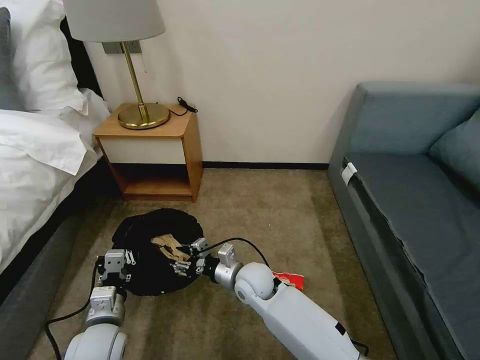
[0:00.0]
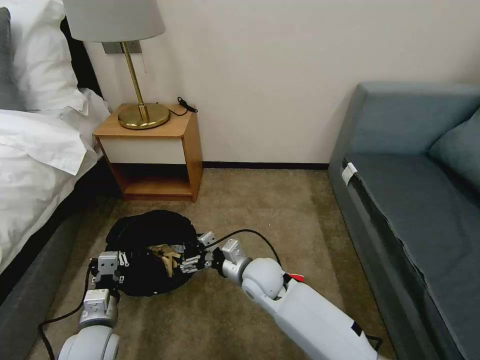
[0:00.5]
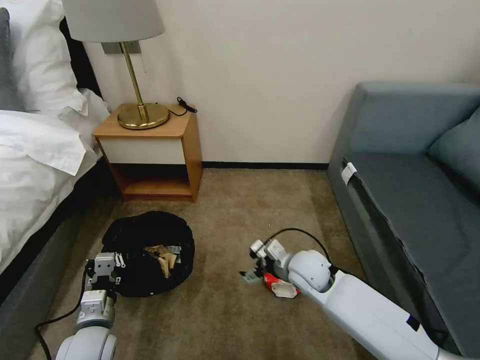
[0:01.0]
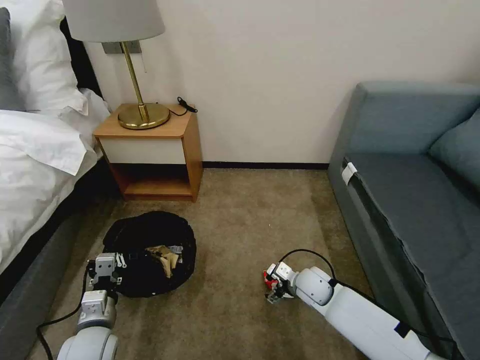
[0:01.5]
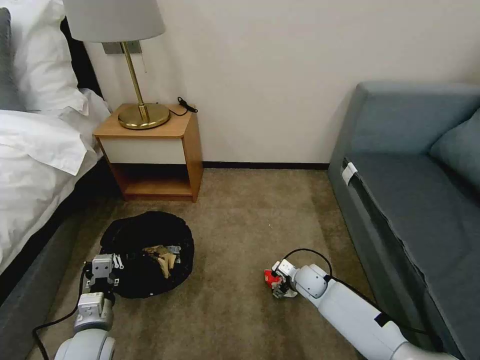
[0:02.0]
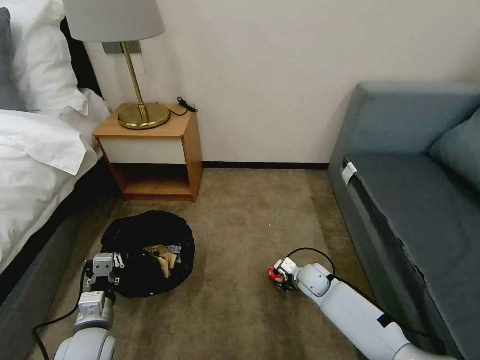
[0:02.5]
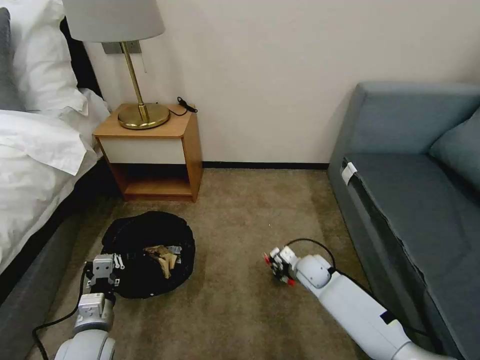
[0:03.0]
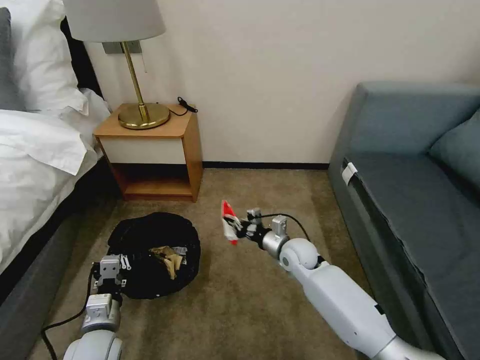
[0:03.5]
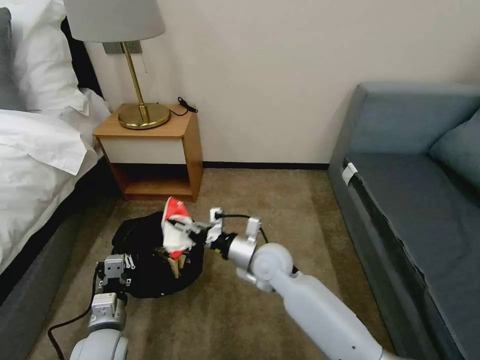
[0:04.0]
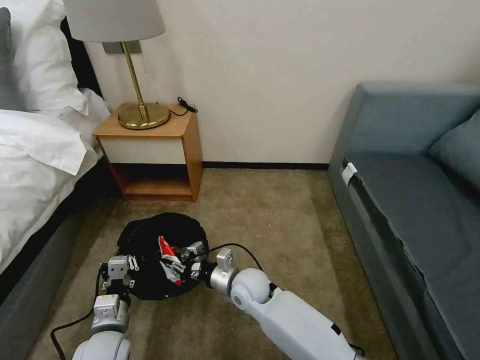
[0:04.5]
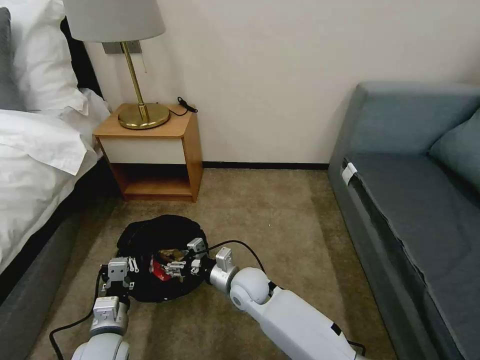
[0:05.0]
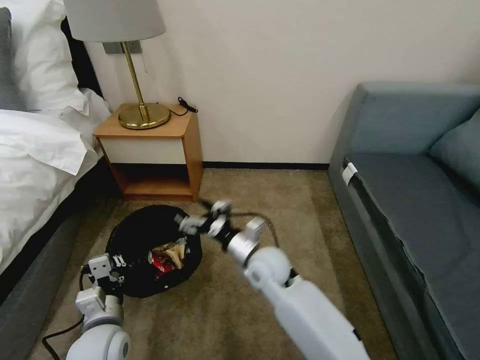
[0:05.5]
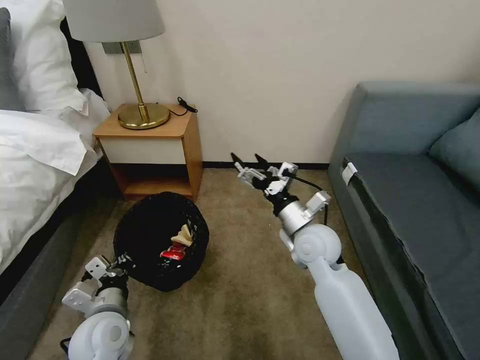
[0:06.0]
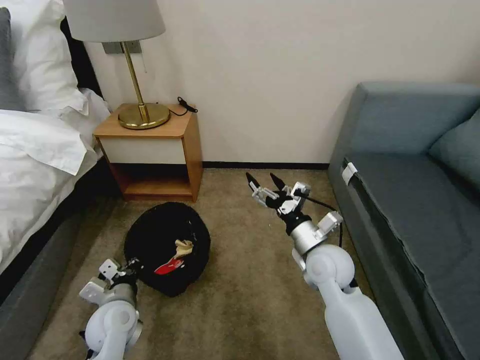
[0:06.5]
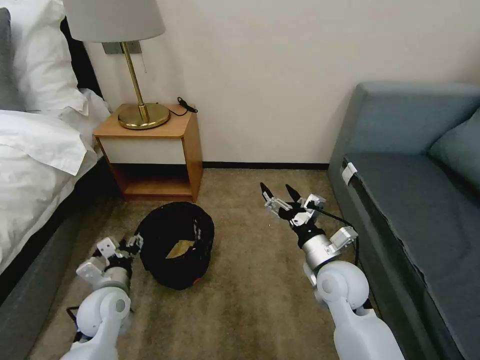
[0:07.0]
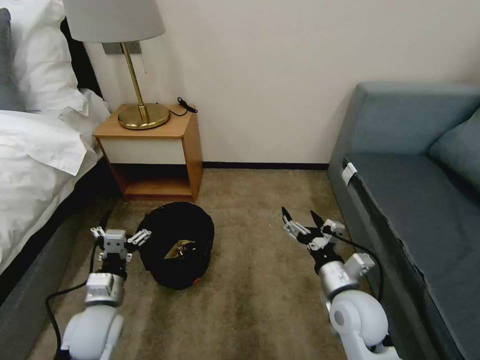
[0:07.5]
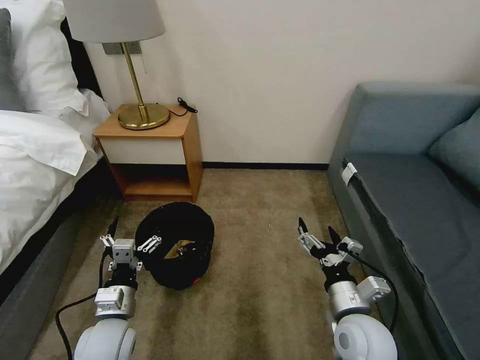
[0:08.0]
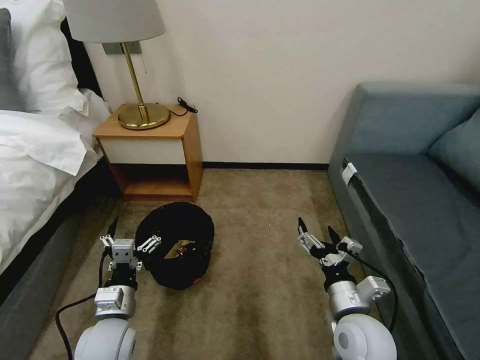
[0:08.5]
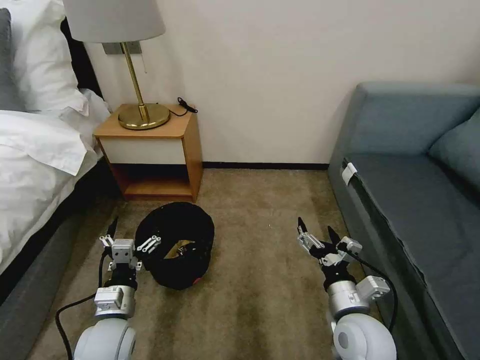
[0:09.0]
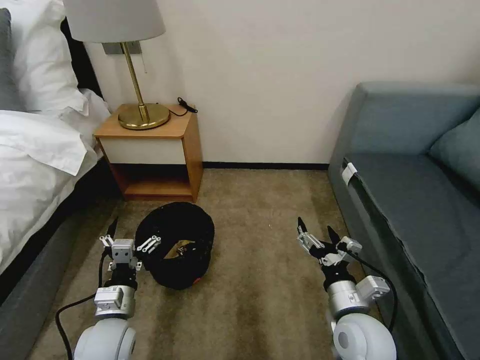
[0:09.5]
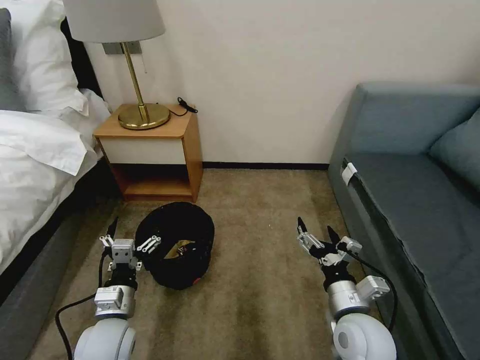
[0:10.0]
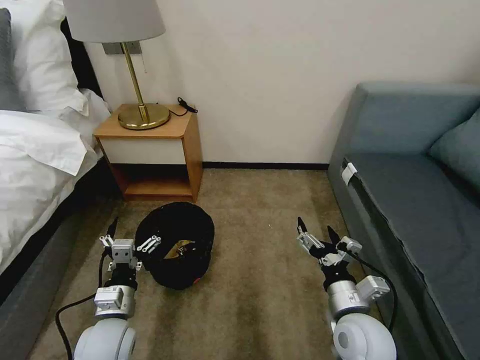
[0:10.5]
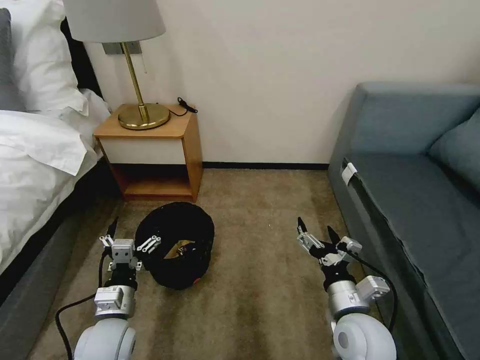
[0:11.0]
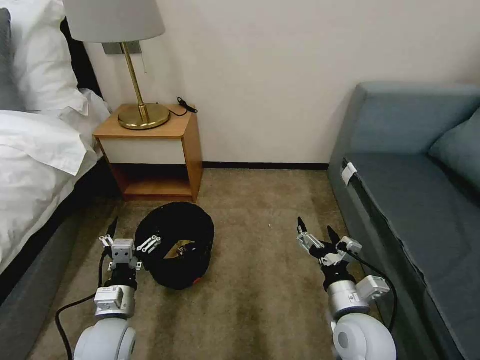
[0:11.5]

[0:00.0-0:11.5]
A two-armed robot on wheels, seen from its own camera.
Task of the whole recording: Pick up the trash bin, then pick up the garbage on the floor and place it into the trash bin.
0:00.0 to 0:02.0: The right gripper travels to the right and downward by about 20 cm, and opens its fingers.
0:02.0 to 0:04.0: The right gripper travels upward and to the left by some 20 cm, and closes its fingers.
0:04.0 to 0:06.0: The left gripper shifts approximately 5 cm upward. The right gripper moves to the right and upward, about 10 cm, and opens up.
0:06.0 to 0:07.5: The left gripper opens up; the right gripper is displaced backward, to the right and downward by about 15 cm.
0:07.5 to 0:09.5: The grippers make only small movements.
0:09.5 to 0:11.5: Both grippers stay put.

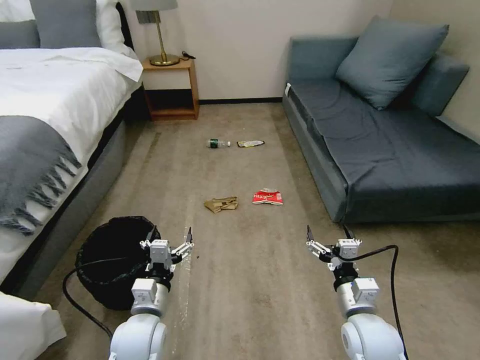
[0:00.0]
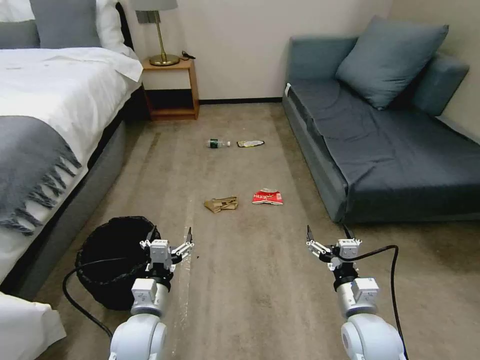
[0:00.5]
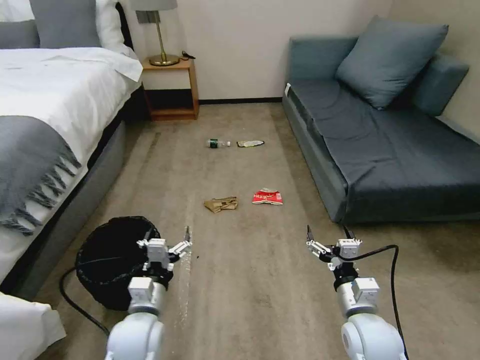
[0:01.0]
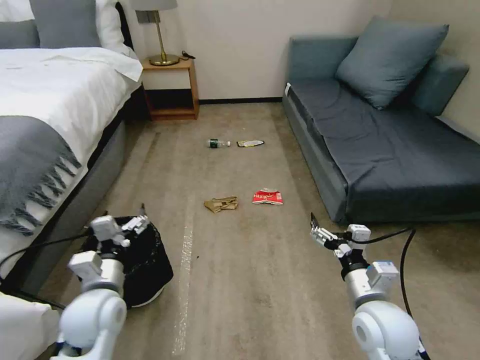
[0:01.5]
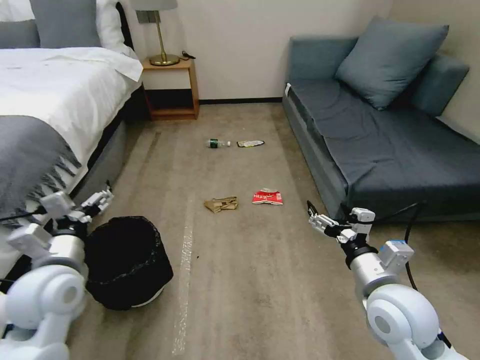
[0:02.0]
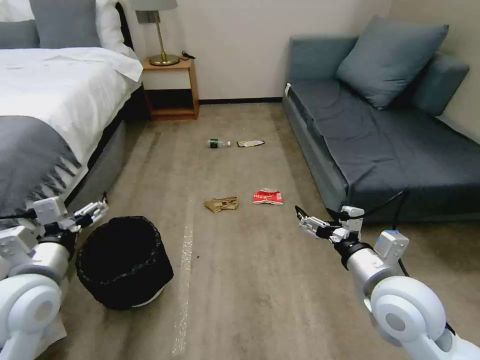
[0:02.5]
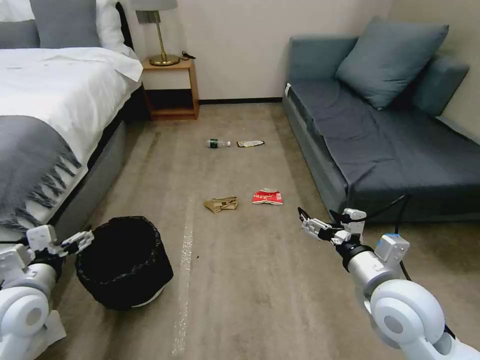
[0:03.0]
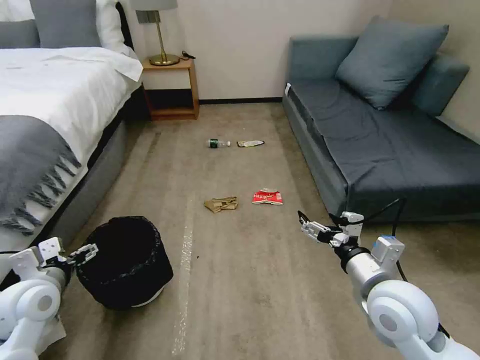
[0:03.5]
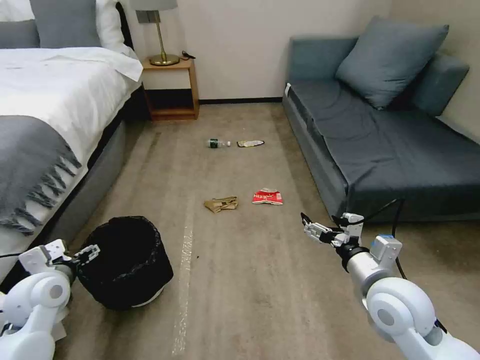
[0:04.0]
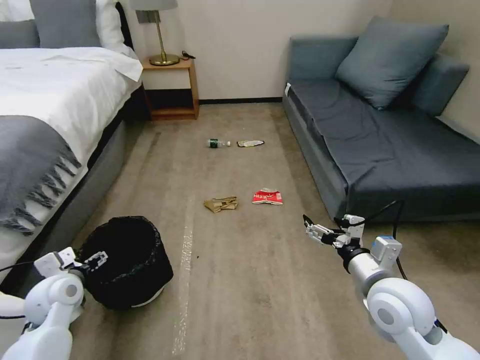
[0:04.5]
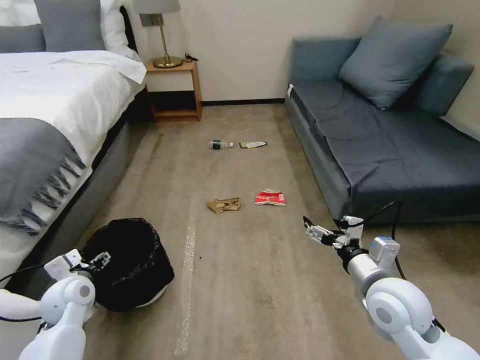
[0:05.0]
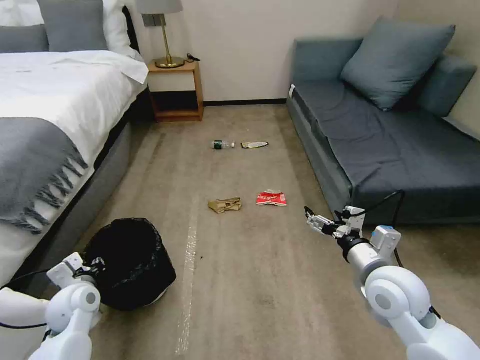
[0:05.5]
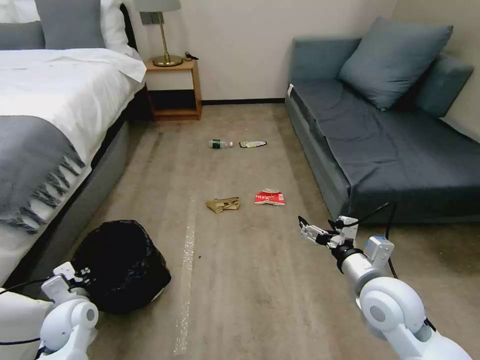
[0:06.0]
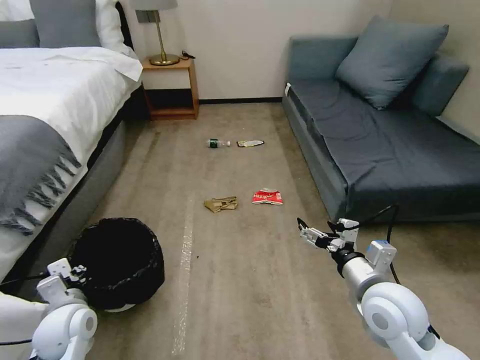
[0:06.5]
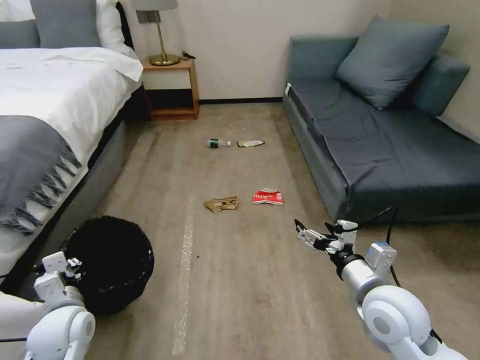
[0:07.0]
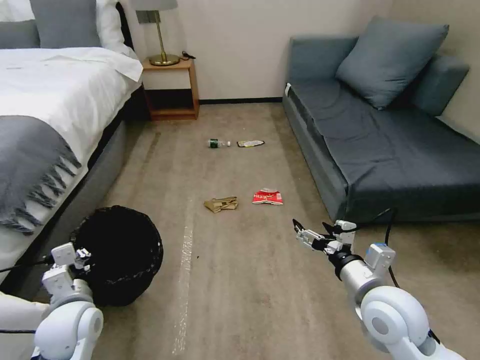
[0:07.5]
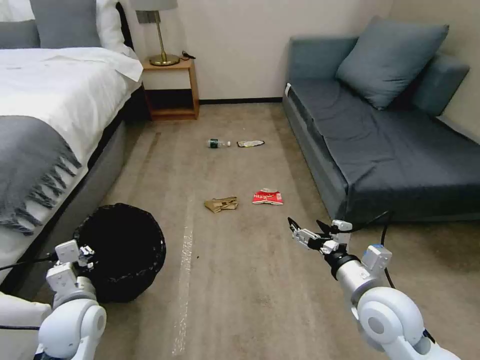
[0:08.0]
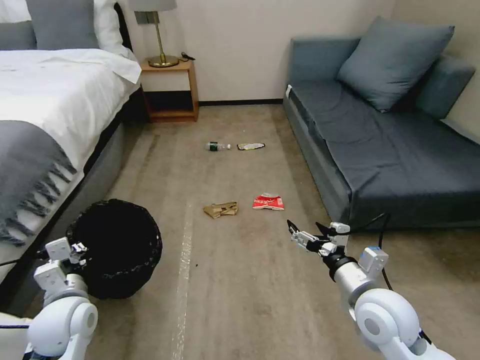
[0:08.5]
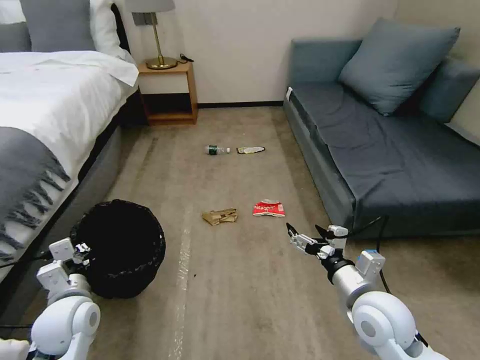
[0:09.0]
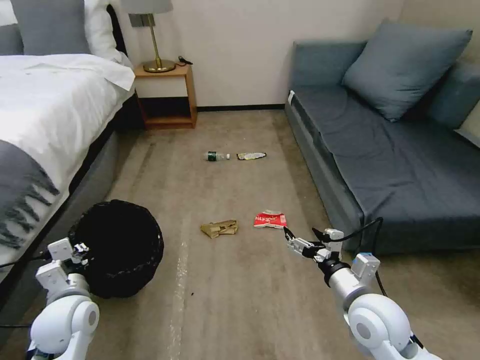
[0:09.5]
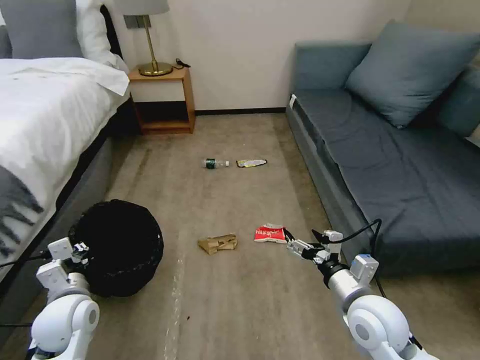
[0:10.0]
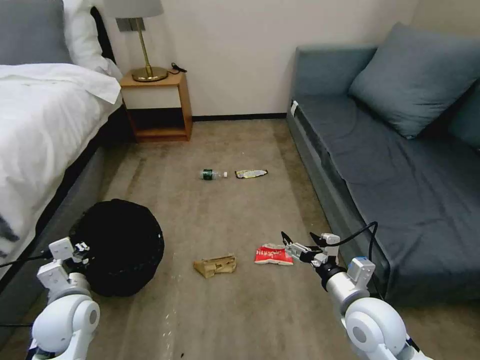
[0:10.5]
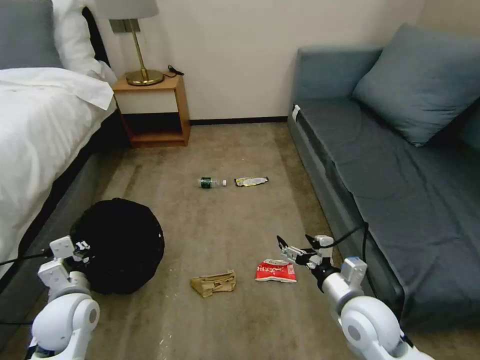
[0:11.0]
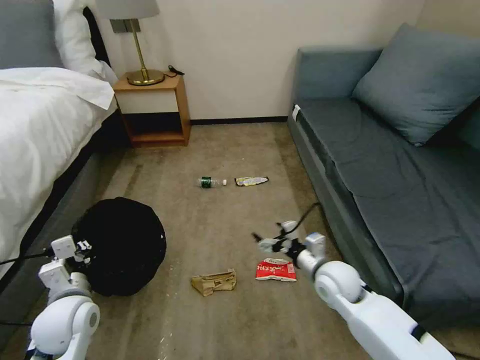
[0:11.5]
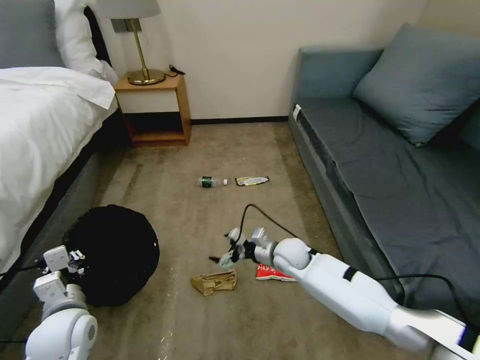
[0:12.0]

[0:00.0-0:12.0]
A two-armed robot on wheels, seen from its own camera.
Task of the whole recording: Pick up the trash bin, then pick up the garbage on the floor and place it into the trash bin.
0:02.0 to 0:04.0: The left gripper moves downward and to the left, roughly 10 cm.
0:04.0 to 0:06.0: The left gripper goes approximately 10 cm downward, and closes.
0:06.0 to 0:08.0: The left gripper travels upward and to the right by roughly 10 cm.
0:10.0 to 0:12.0: The right gripper is displaced forward, to the left and downward by about 25 cm.

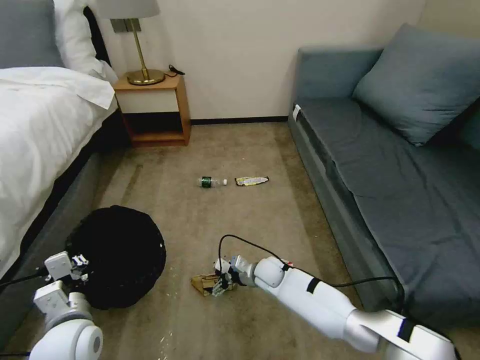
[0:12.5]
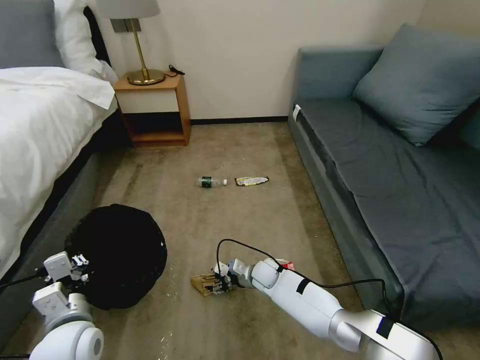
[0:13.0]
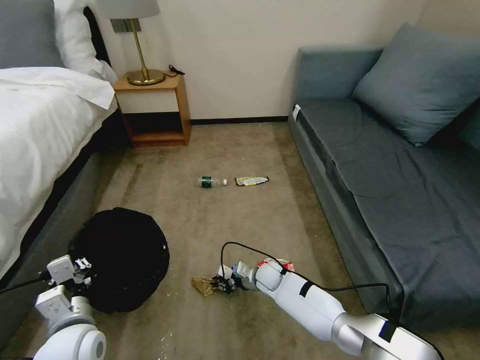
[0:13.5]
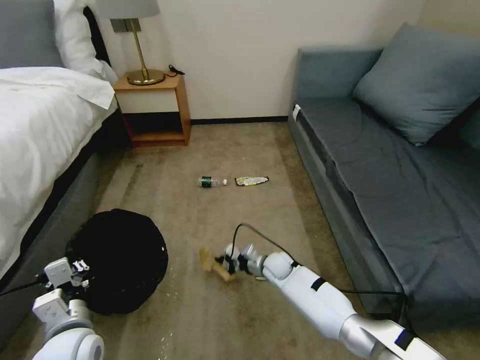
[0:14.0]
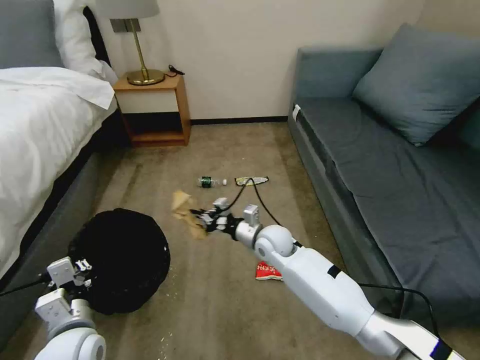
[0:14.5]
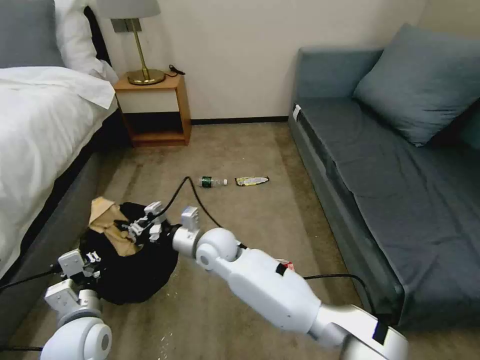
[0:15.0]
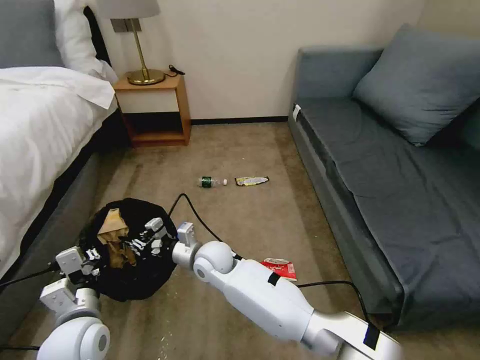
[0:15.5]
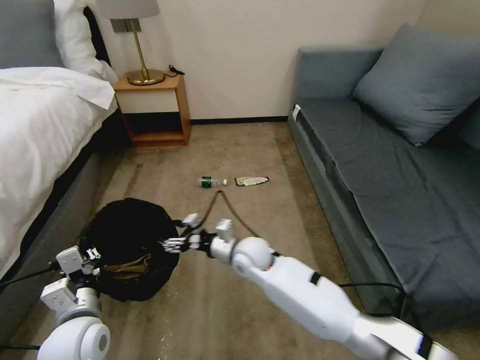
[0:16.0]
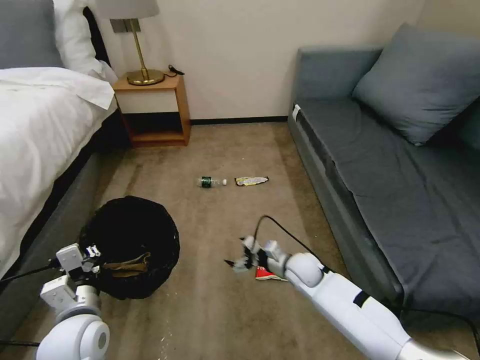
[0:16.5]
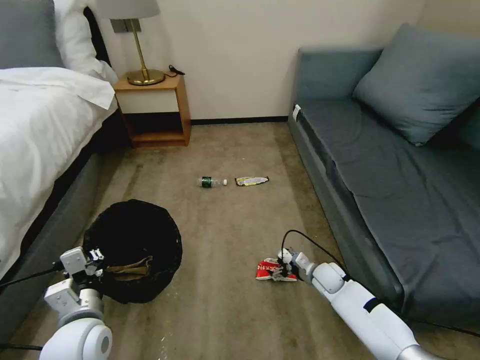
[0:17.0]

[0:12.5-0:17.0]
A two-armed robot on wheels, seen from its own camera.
Task of the whole recording: Pick up the trash bin, then pick up the garbage on the floor and place it into the trash bin.
0:12.5 to 0:14.5: The right gripper shifts roughly 15 cm upward, and closes.
0:14.5 to 0:17.0: The right gripper goes some 25 cm to the right and downward, and opens its fingers.
